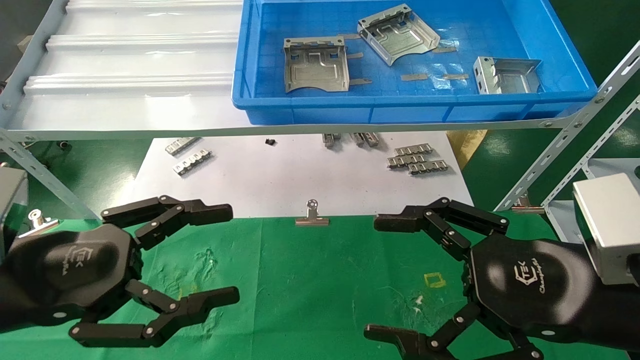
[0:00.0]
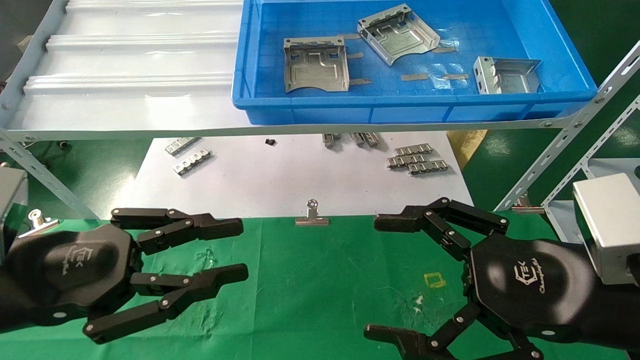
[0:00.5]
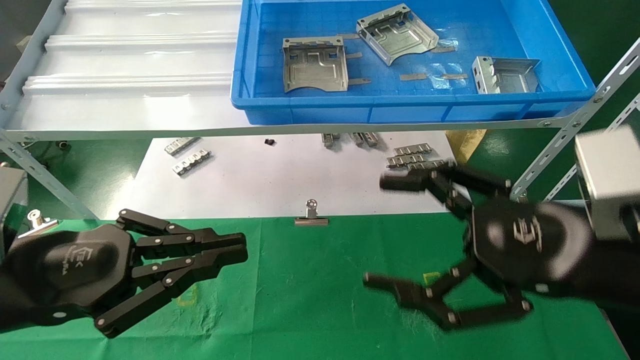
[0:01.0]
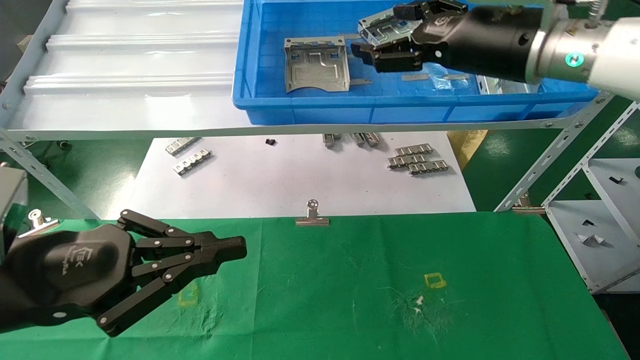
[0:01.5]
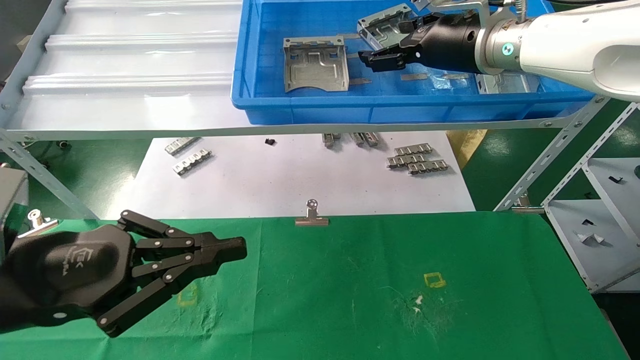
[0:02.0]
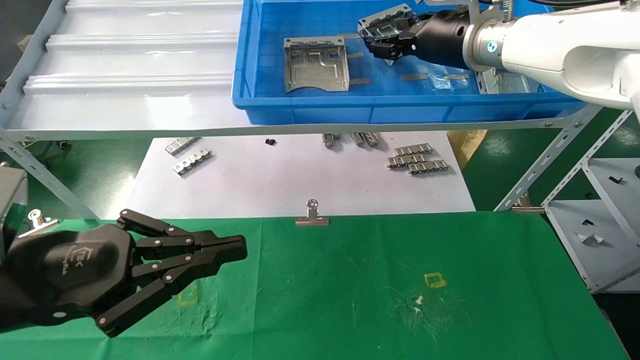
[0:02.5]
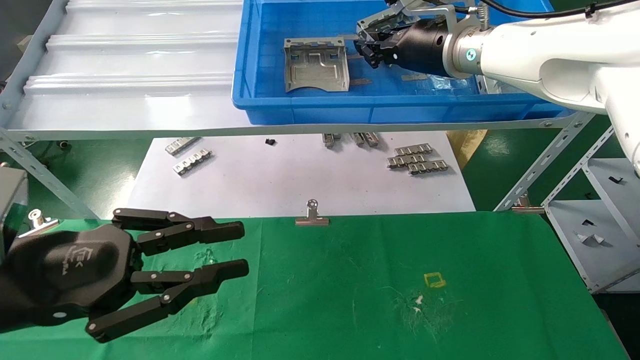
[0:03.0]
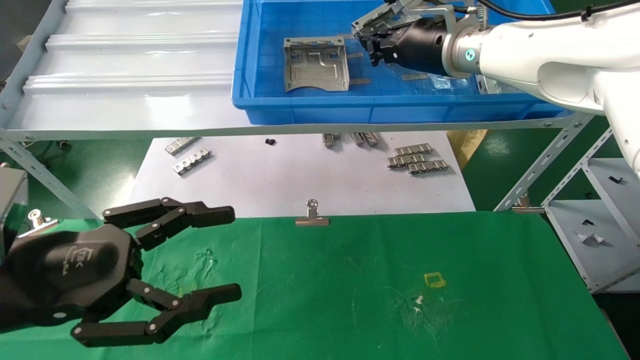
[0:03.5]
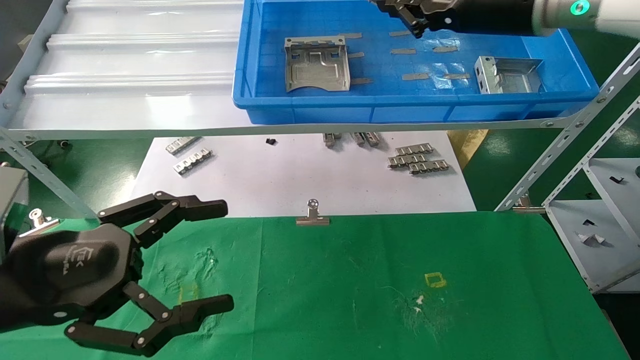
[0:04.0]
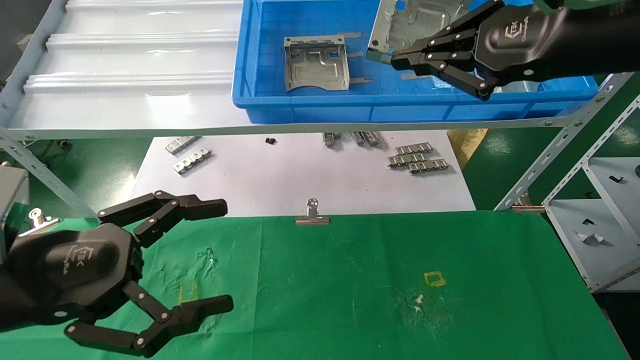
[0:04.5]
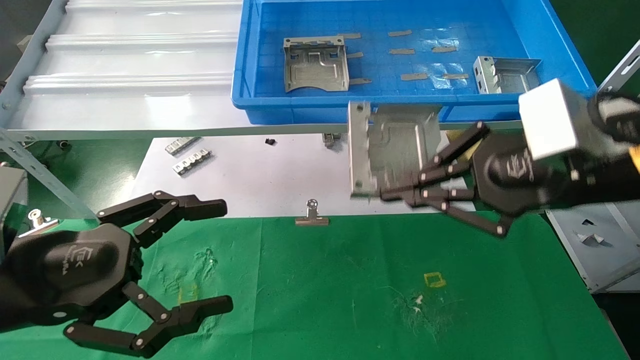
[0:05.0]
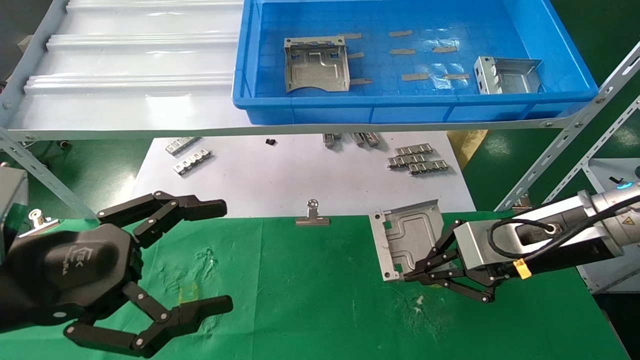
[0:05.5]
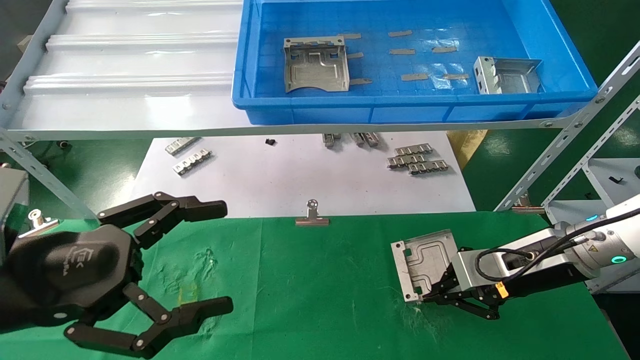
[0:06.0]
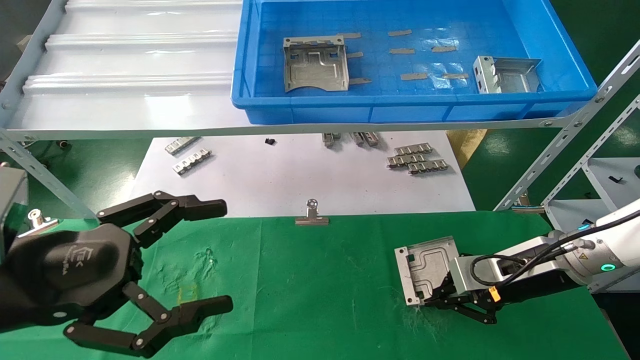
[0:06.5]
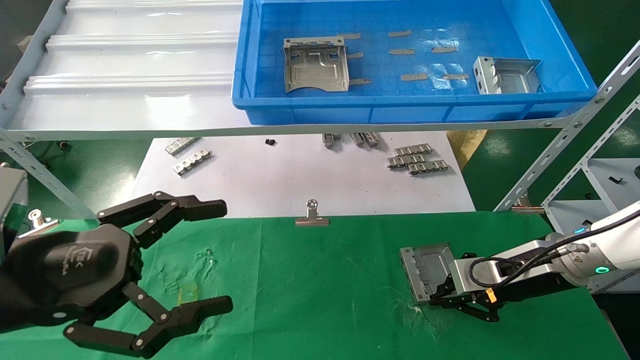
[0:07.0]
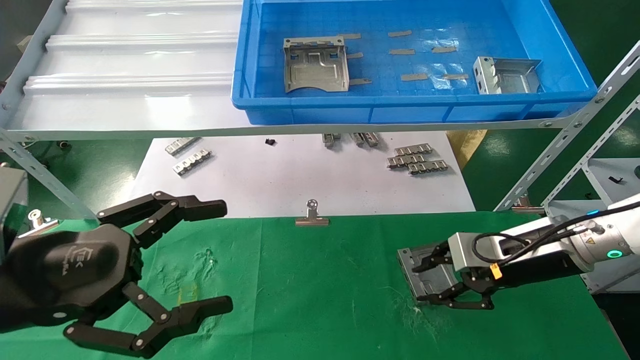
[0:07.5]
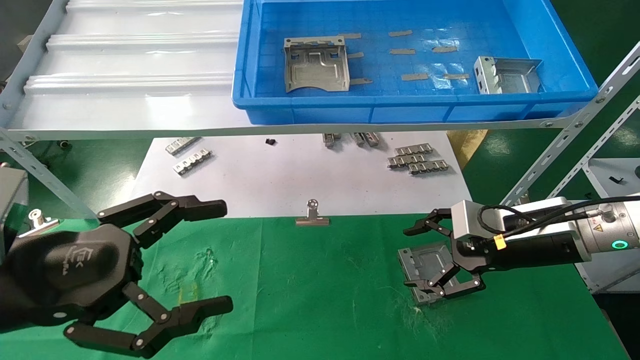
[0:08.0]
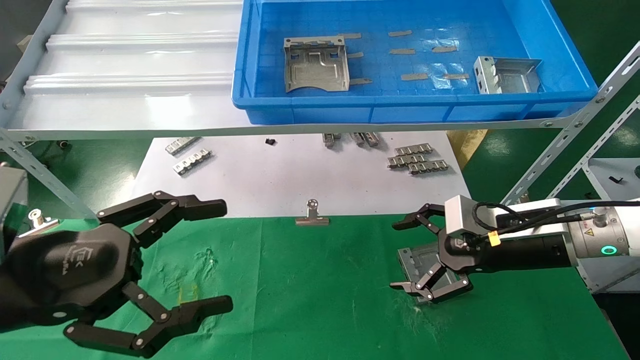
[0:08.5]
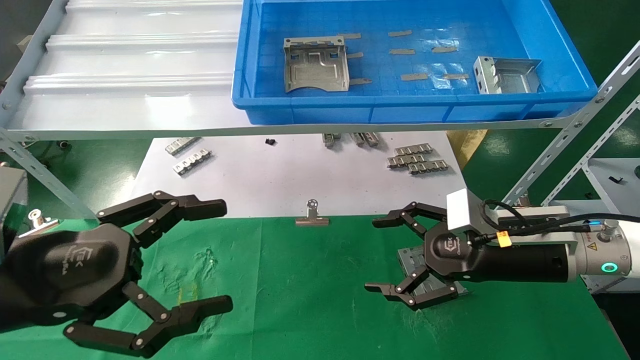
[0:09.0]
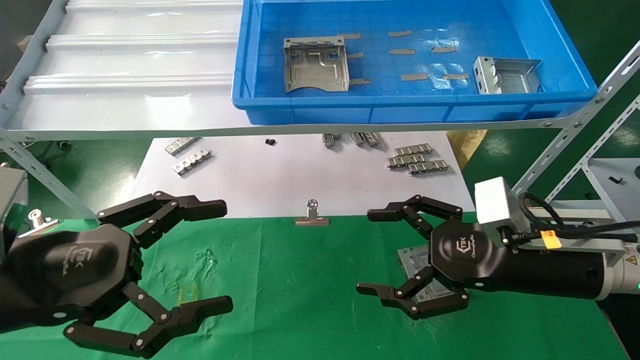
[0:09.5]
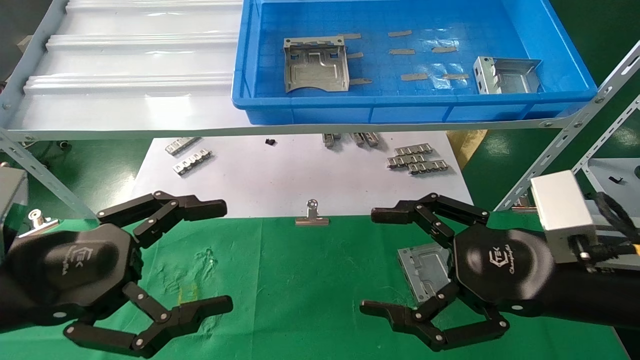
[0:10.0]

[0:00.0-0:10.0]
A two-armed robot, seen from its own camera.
Task of the whole recording: use the mechanical arm to pick up the parts and place them on the table.
Step, 0:01.5 to 0:04.5: Pick up the hard drive bracket from the feeding area.
Step, 0:05.0 to 0:07.5: Place the hard drive bracket into the box.
0:00.0 to 0:02.0: The right gripper goes about 30 cm forward and upward, while the left gripper closes up.
0:02.0 to 0:04.0: The right gripper travels backward by approximately 5 cm, and closes. The left gripper opens up.
0:04.0 to 0:06.0: The right gripper shifts roughly 30 cm downward.
0:06.0 to 0:08.0: The right gripper opens its fingers.
0:08.0 to 0:10.0: The right gripper travels backward by roughly 15 cm.
